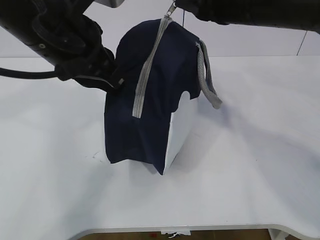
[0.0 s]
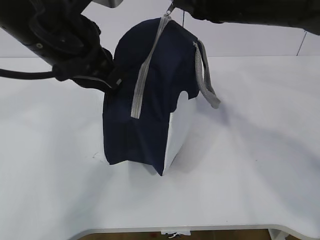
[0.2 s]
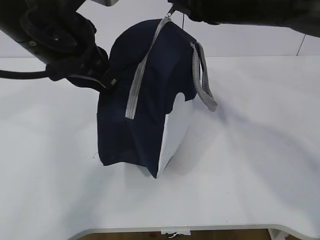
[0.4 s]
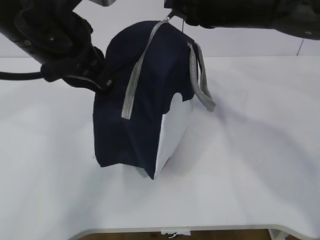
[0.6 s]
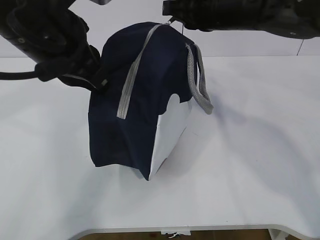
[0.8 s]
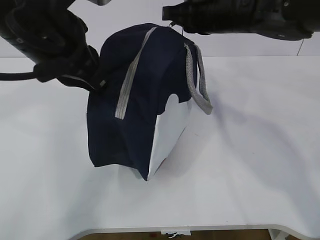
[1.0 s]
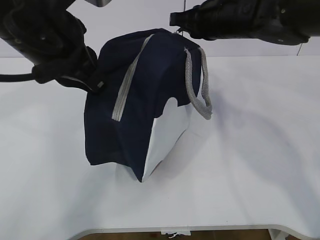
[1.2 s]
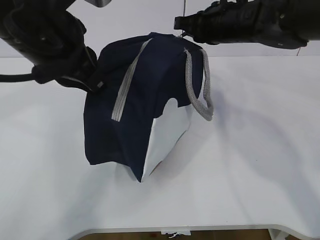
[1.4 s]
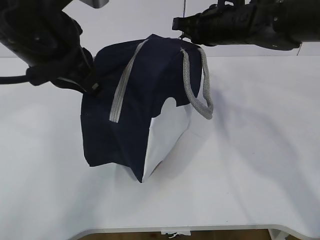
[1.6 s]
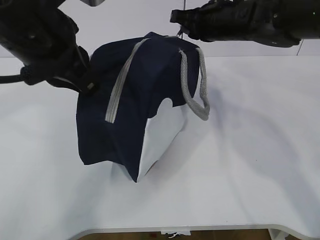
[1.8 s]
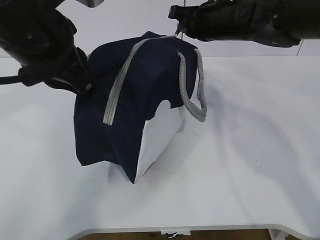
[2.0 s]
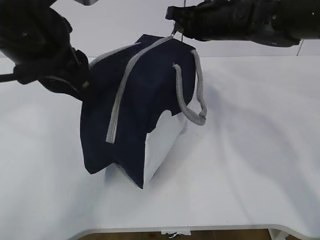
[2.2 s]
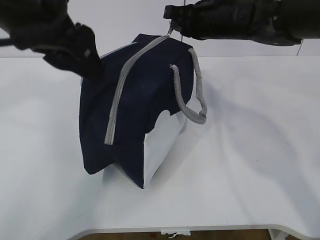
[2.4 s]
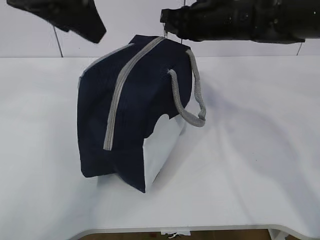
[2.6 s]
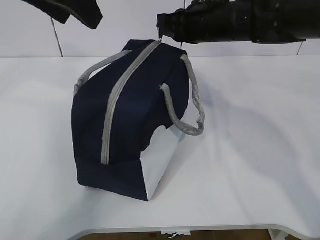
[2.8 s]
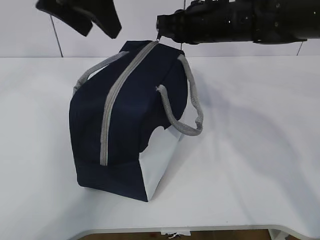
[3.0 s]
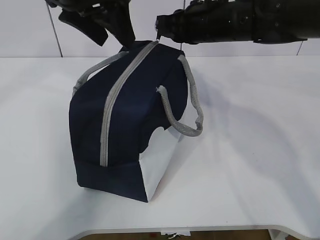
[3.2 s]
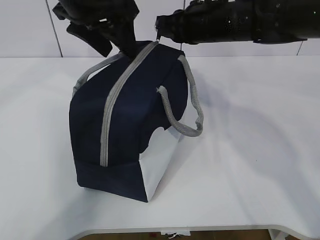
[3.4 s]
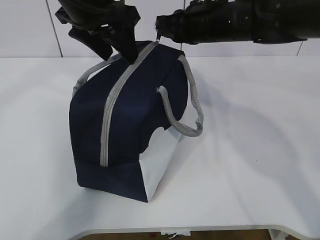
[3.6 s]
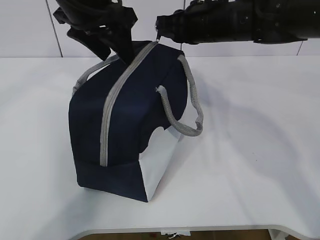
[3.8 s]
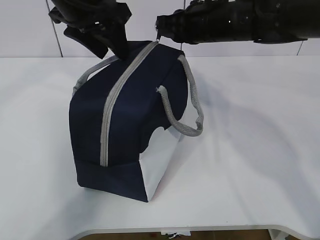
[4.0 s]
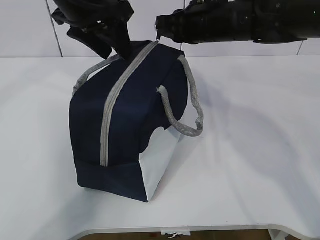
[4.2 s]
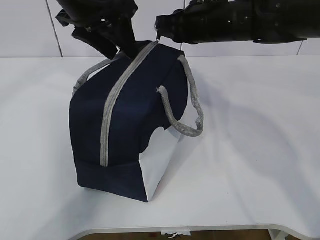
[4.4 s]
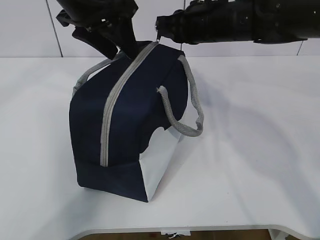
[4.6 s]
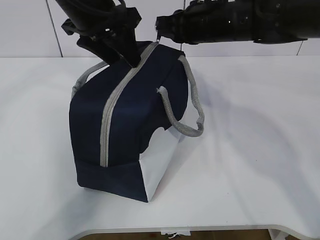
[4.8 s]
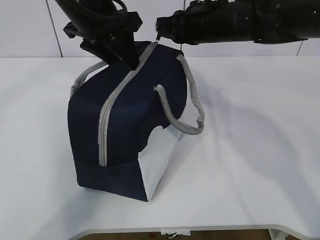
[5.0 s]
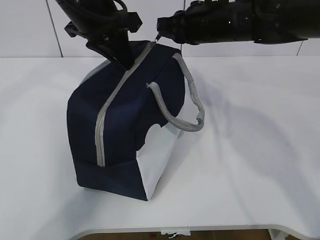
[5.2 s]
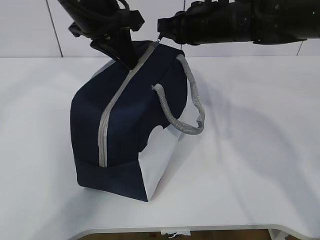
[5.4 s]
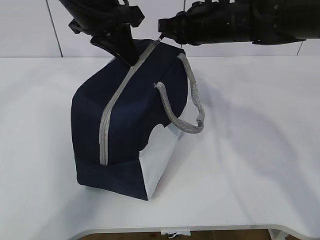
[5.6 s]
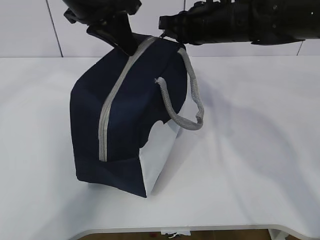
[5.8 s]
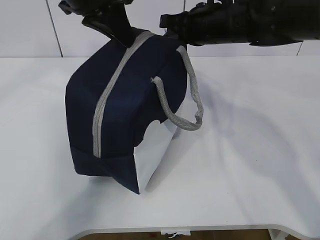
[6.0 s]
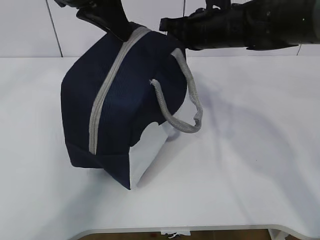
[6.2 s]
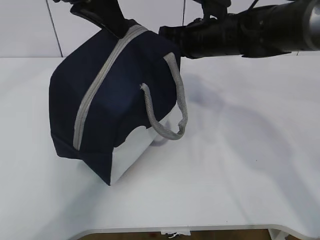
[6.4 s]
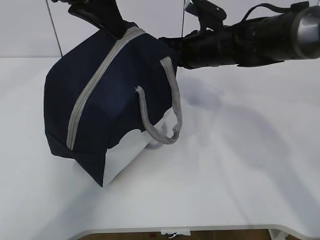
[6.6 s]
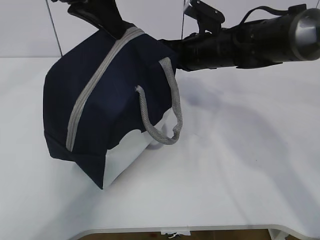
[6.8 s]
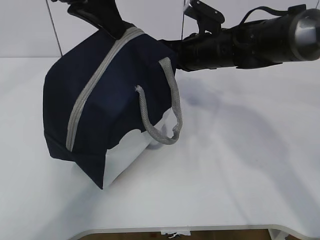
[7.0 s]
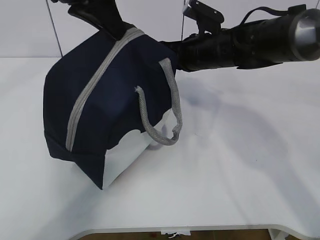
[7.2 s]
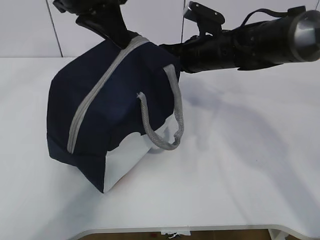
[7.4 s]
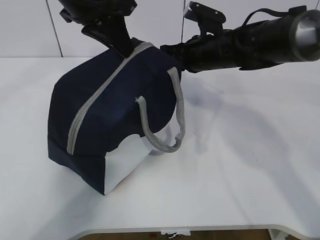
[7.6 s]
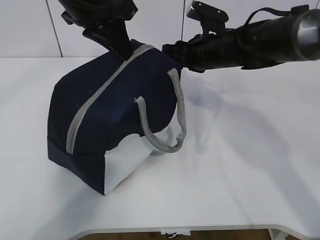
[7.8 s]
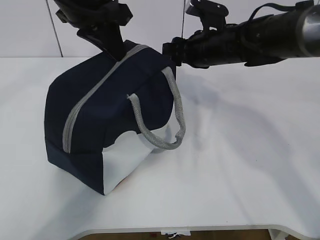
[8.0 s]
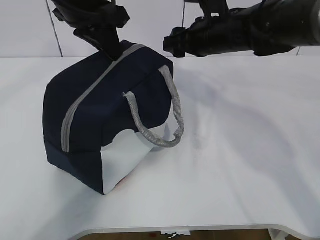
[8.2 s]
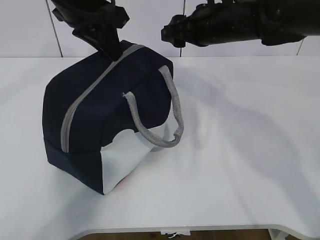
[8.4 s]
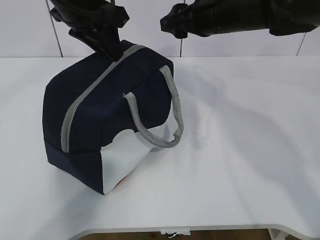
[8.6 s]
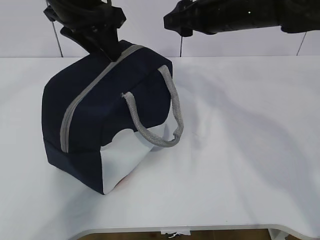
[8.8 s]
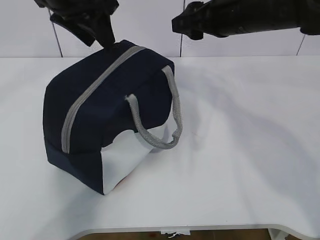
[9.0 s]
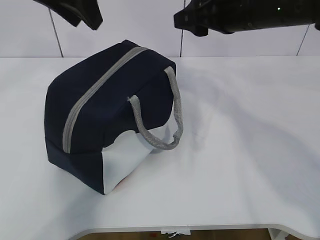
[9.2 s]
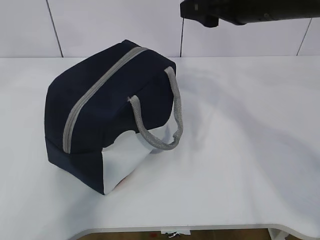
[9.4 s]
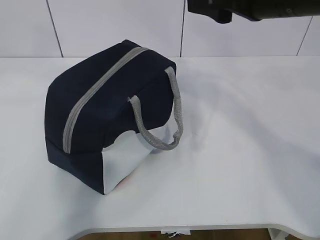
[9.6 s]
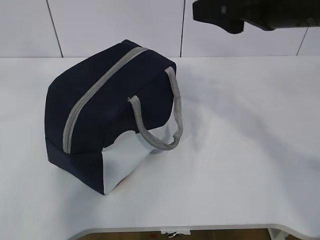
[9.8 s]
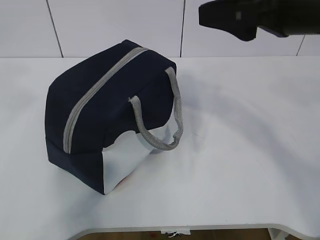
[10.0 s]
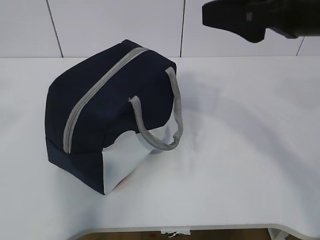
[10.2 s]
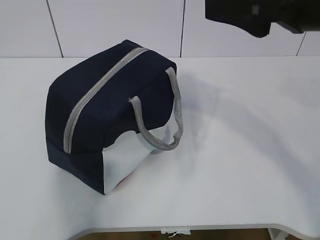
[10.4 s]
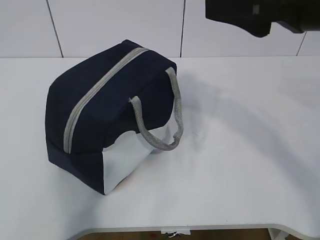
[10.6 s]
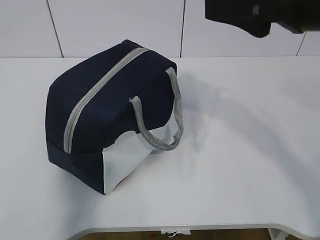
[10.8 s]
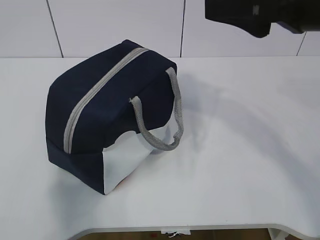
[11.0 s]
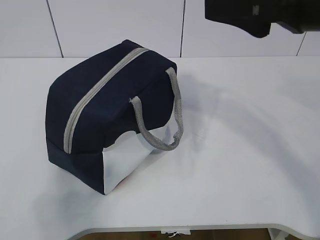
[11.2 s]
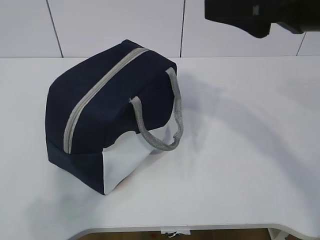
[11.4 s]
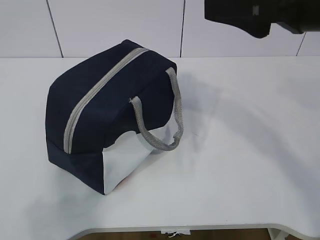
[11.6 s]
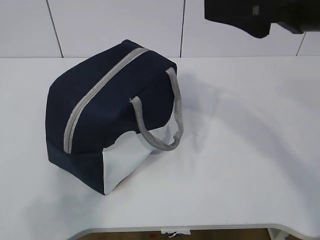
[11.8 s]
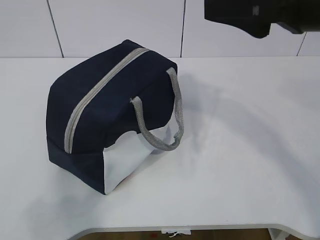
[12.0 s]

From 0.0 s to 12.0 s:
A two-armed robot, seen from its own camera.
Step, from 0.0 s to 9.2 s: zip up the zipper to close the bag.
From 0.0 s to 1.6 s: The right gripper shifts approximately 15 cm forward and downward.
From 1.6 s to 3.0 s: The left gripper is displaced forward and upward by roughly 10 cm, and opens up.
From 3.0 s to 4.4 s: The left gripper ends up some 5 cm from where it was.
From 4.4 s to 6.0 s: The left gripper closes.
From 6.0 s to 7.6 s: The right gripper moves downward, about 5 cm.
From 7.6 s to 9.0 s: The right gripper moves upward and backward, some 10 cm, and opens its fingers, while the left gripper opens its fingers.
From 9.0 s to 10.4 s: The right gripper travels backward and upward by about 15 cm. Meanwhile the left gripper is displaced backward and to the left by approximately 30 cm.
From 10.4 s to 12.0 s: The left gripper goes roughly 15 cm downward and backward.

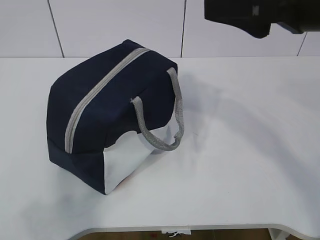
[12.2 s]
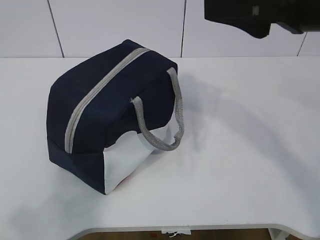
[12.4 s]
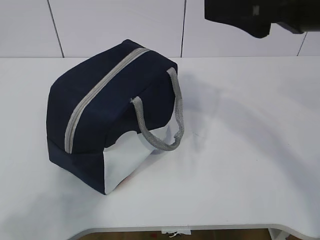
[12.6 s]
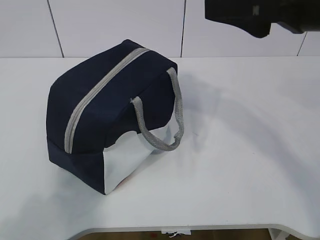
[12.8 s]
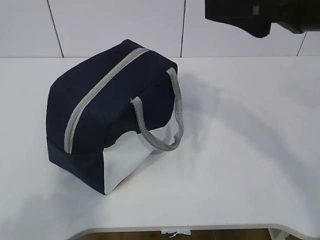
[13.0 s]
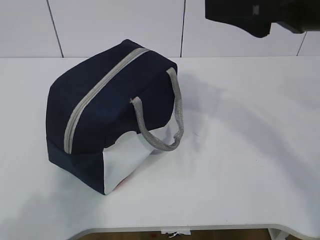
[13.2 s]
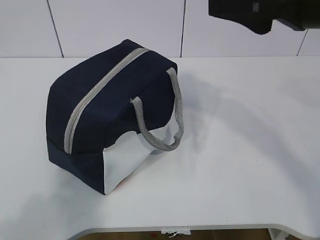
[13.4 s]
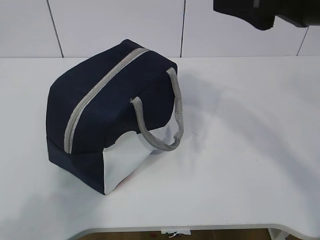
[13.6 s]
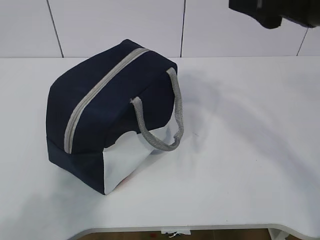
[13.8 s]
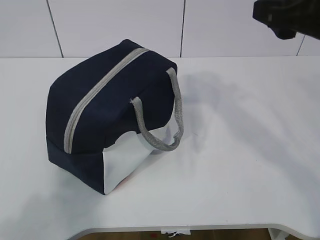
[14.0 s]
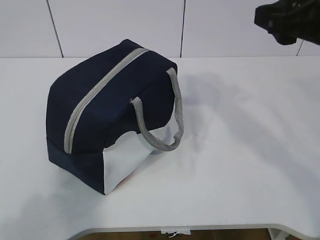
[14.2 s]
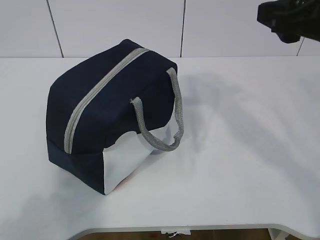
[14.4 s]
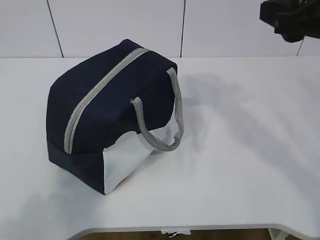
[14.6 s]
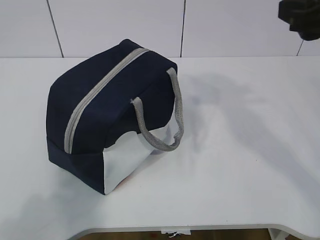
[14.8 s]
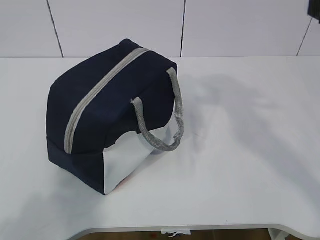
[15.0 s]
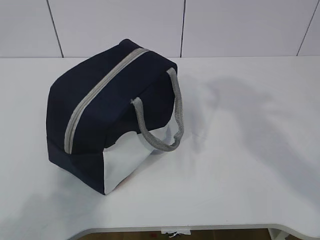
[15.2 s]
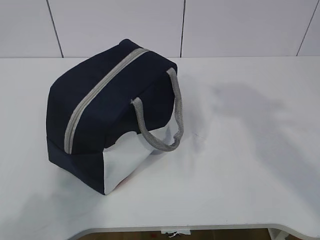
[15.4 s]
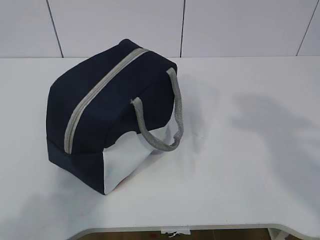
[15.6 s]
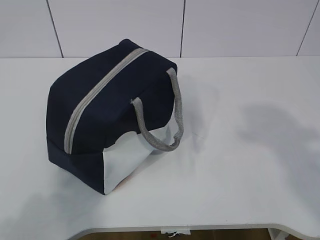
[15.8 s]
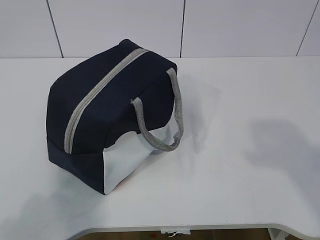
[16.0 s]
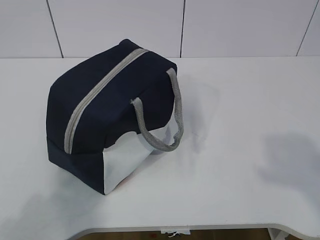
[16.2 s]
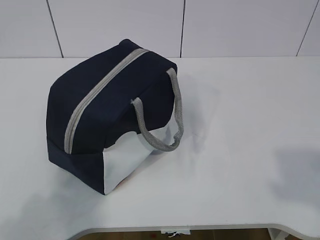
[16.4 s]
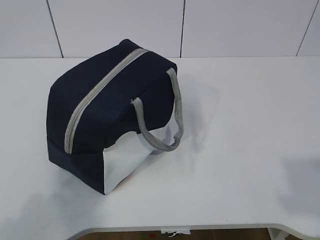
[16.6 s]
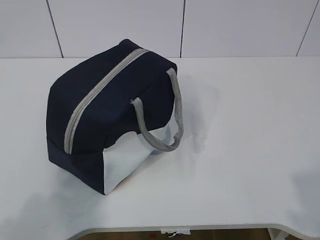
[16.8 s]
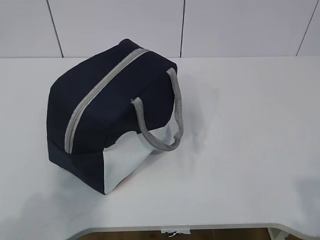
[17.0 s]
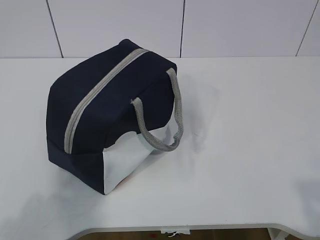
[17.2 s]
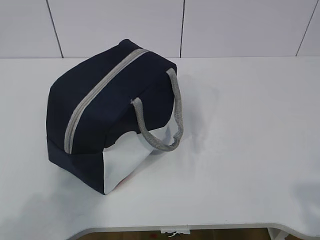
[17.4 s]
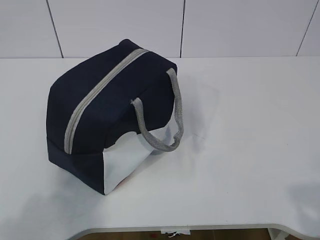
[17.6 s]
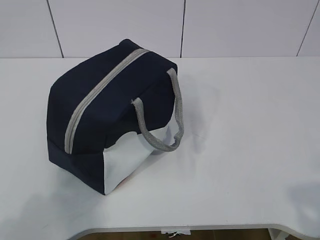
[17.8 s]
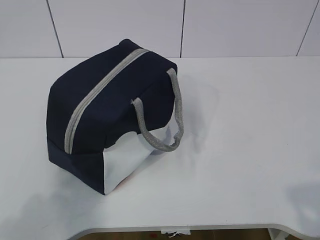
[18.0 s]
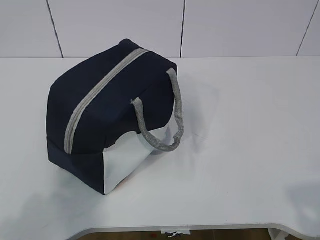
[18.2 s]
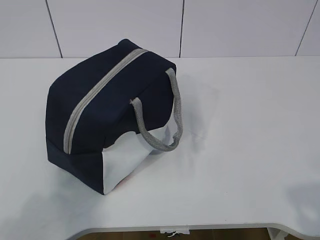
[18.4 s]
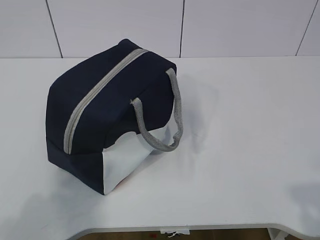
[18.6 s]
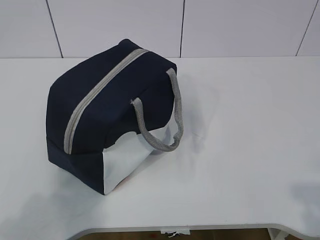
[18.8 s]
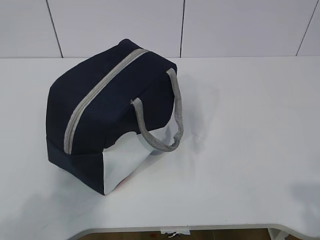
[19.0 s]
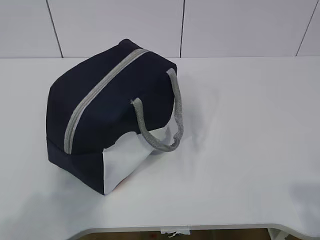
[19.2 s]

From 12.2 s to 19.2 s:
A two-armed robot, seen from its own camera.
From 13.6 s to 15.0 s: The right gripper is displaced to the right by about 5 cm.
From 15.0 s to 16.4 s: The right gripper travels backward by some 25 cm.
